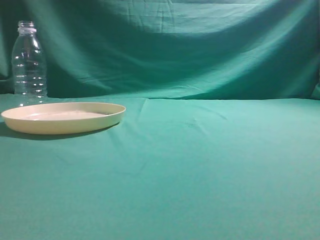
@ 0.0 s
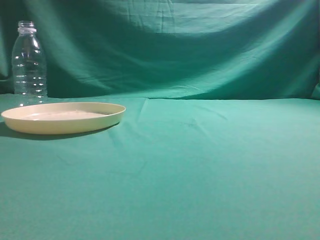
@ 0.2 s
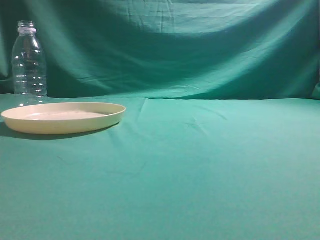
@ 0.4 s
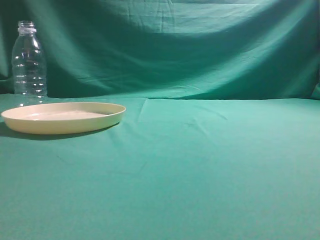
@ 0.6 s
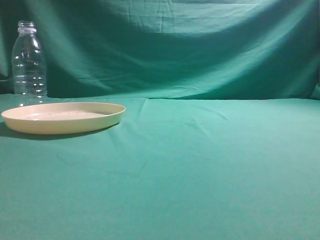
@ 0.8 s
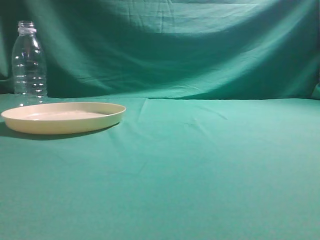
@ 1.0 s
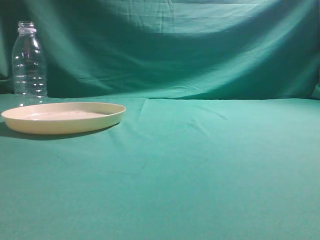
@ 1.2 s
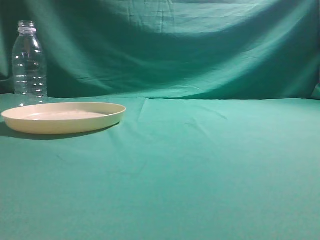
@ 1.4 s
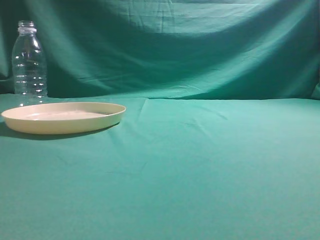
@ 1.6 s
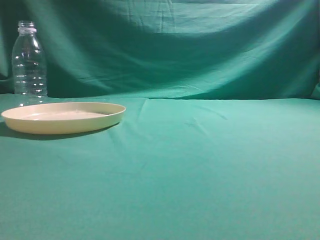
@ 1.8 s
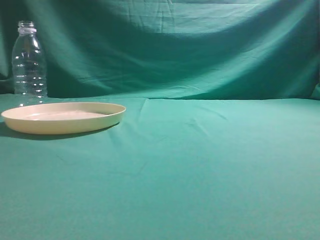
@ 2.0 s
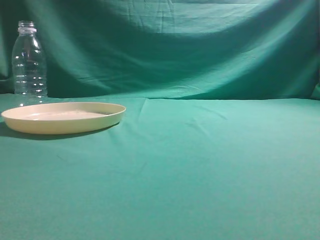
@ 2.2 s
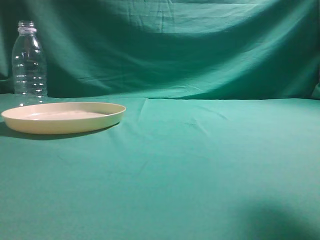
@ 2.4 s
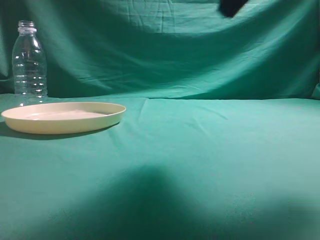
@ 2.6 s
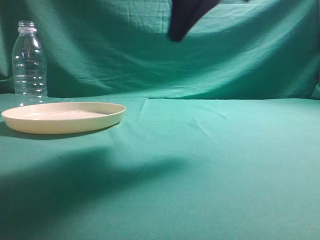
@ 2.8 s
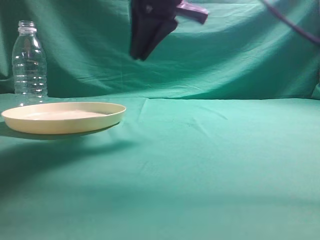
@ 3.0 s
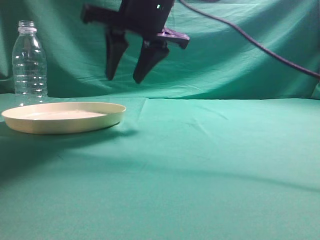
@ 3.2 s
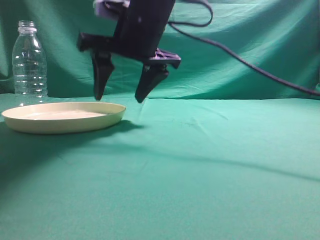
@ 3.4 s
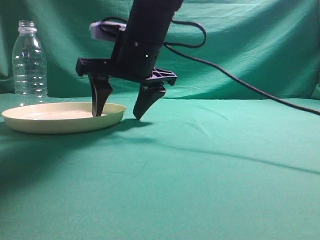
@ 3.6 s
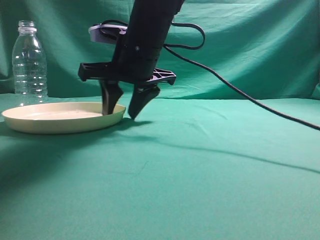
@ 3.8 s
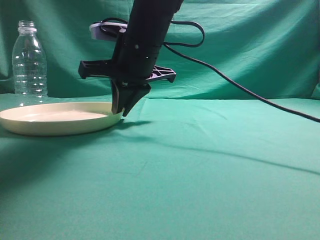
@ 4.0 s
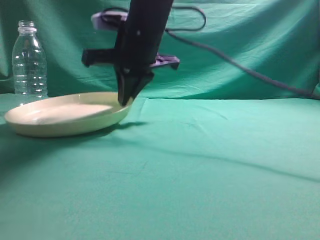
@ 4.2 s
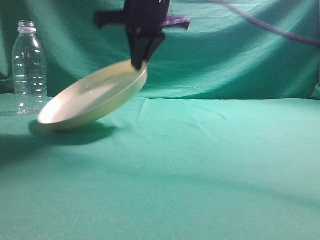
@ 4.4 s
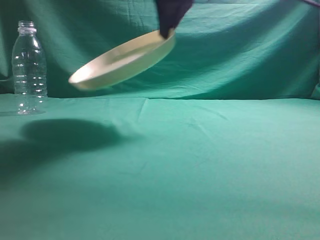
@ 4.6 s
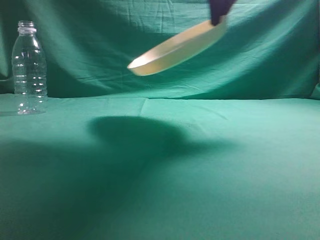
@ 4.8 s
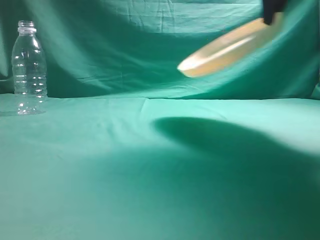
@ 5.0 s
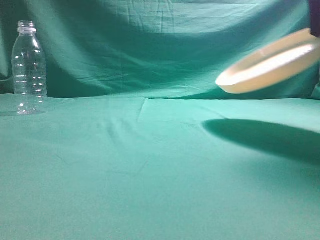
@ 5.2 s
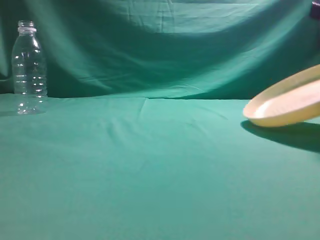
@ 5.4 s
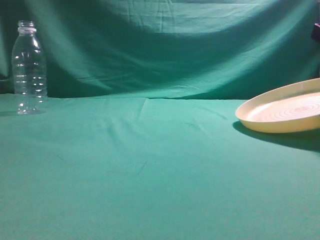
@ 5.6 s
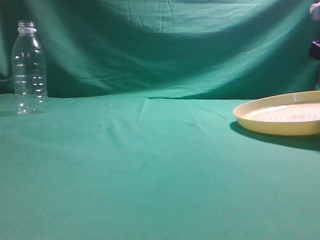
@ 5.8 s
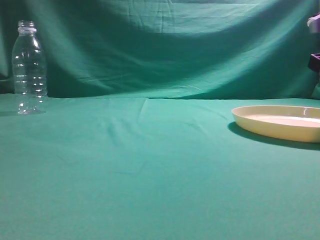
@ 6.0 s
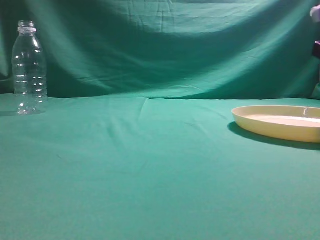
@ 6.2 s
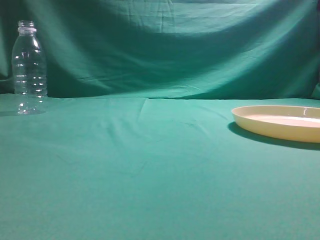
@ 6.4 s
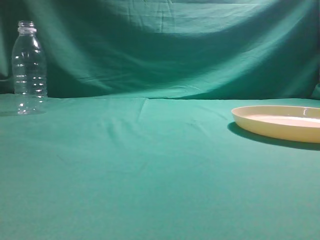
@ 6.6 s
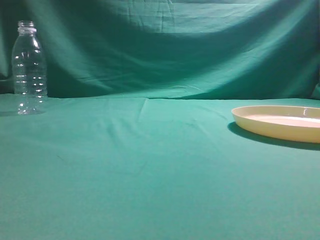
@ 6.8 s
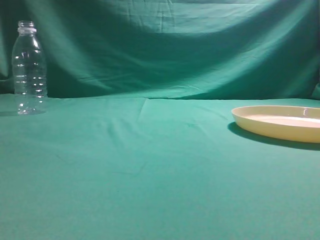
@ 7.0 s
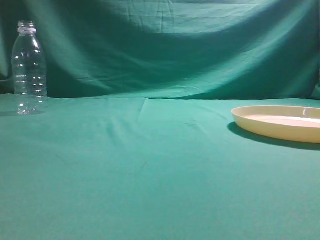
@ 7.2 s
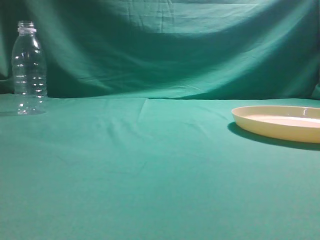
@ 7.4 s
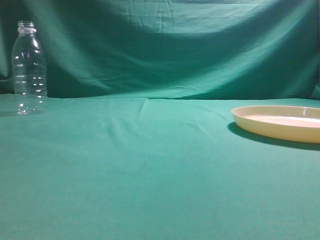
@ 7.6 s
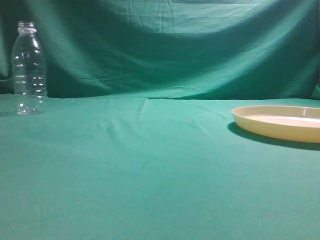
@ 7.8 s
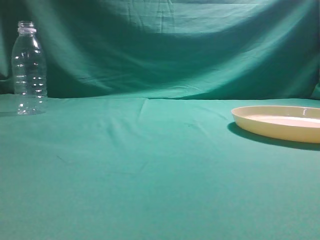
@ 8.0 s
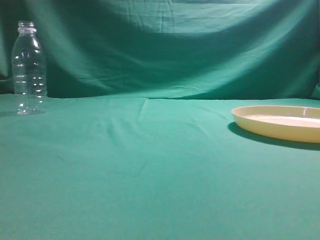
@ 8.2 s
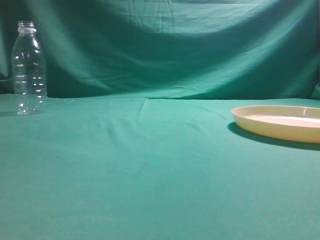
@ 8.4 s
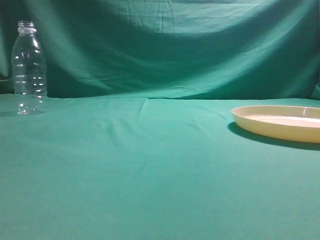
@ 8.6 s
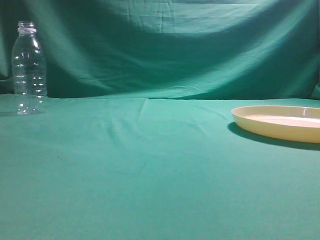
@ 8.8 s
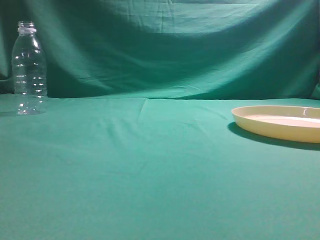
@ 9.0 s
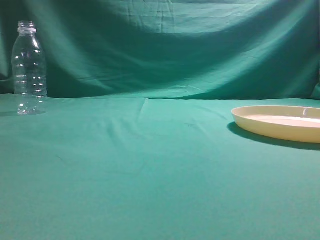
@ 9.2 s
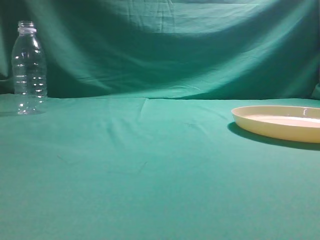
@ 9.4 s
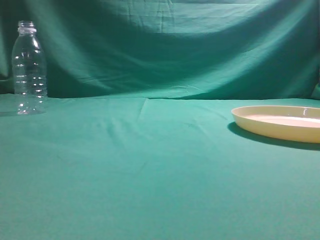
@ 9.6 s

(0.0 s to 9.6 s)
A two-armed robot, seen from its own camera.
Step, 0.0 s - 4.4 s: Pick the container that can hold fruits.
Step, 4.6 s - 6.8 s: Move the picked object to the right side of the table.
1.6 s - 3.2 s: The right gripper moves forward and to the left, approximately 40 cm, and opens its fingers.
3.2 s - 4.8 s: The right gripper travels to the right and upward by roughly 10 cm, and closes up.
4.8 s - 6.4 s: The right gripper moves to the right and downward, some 20 cm, and opens up.
